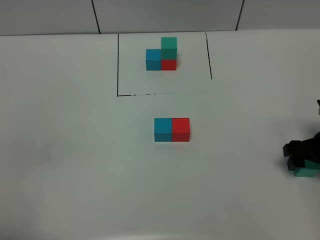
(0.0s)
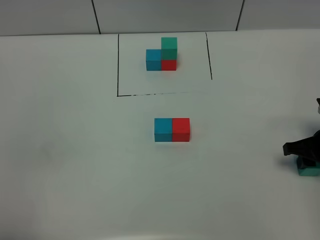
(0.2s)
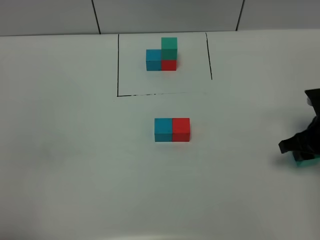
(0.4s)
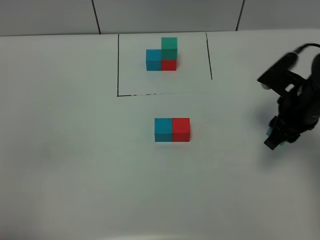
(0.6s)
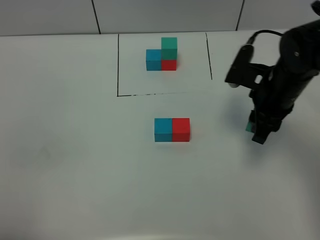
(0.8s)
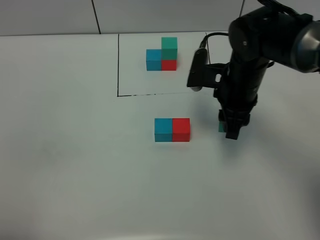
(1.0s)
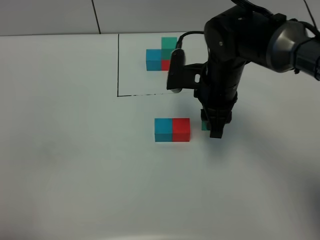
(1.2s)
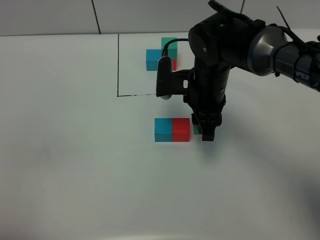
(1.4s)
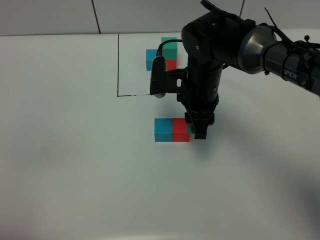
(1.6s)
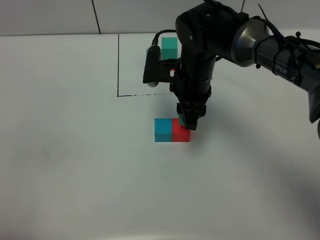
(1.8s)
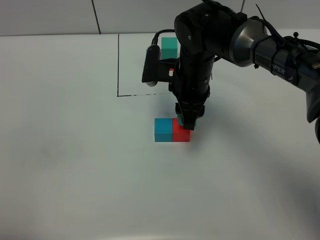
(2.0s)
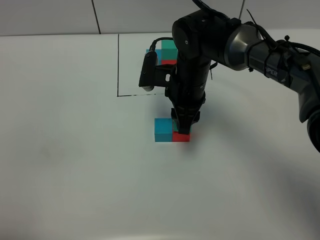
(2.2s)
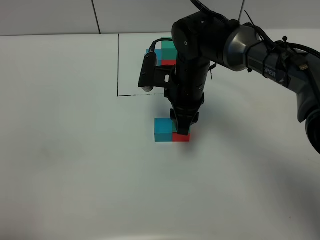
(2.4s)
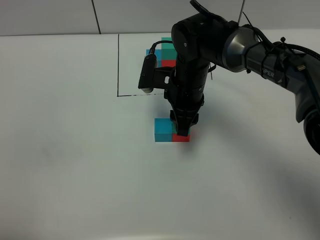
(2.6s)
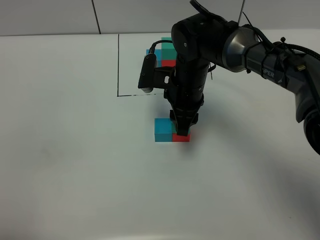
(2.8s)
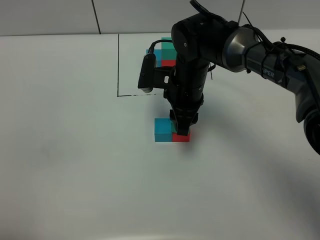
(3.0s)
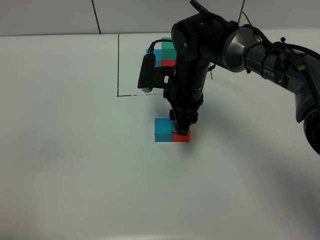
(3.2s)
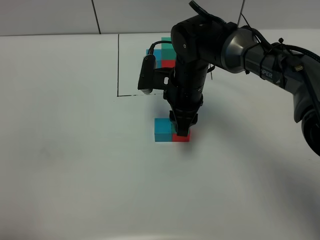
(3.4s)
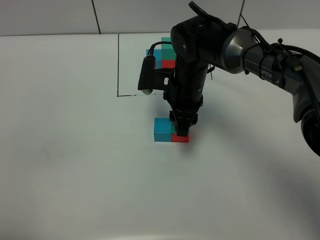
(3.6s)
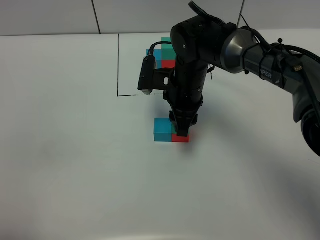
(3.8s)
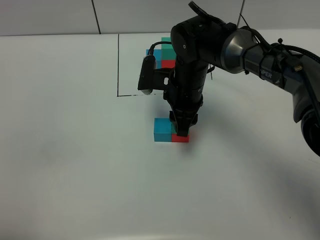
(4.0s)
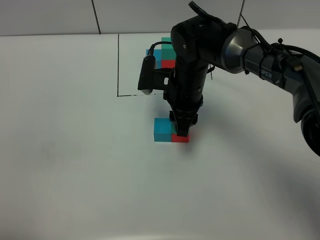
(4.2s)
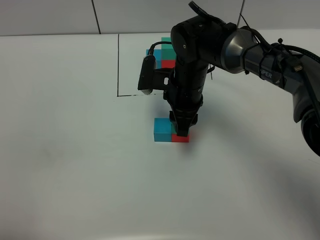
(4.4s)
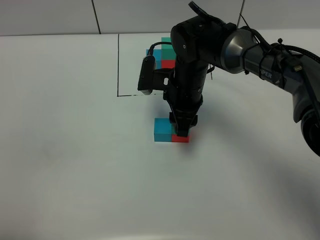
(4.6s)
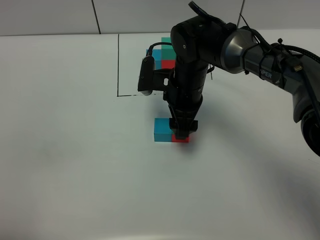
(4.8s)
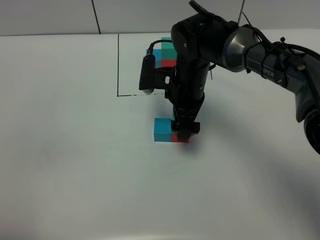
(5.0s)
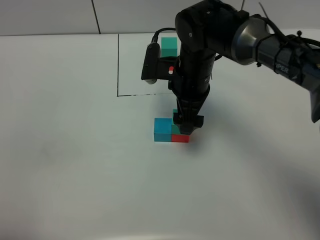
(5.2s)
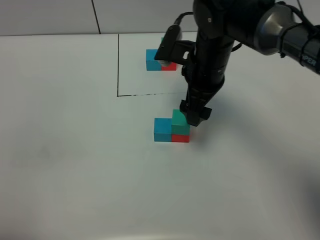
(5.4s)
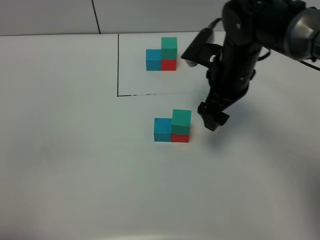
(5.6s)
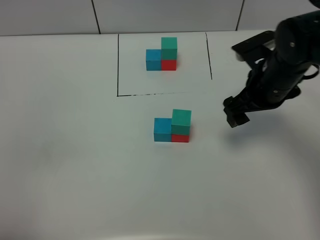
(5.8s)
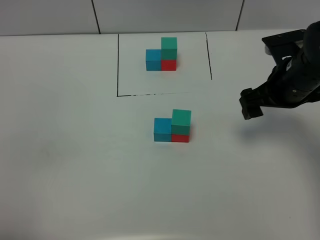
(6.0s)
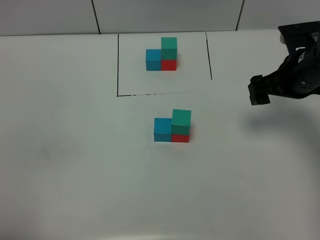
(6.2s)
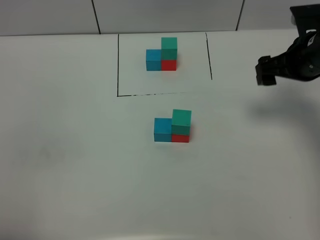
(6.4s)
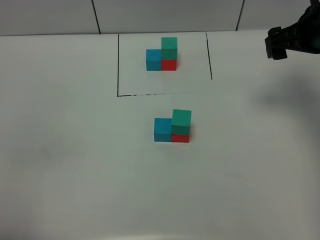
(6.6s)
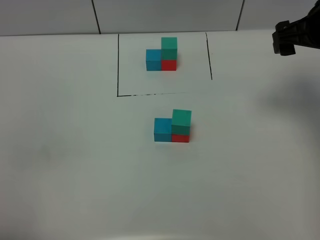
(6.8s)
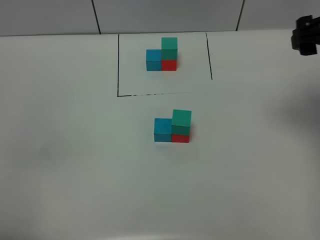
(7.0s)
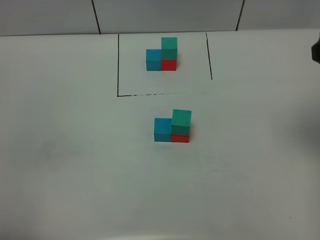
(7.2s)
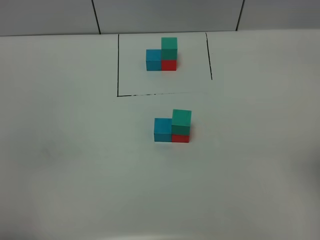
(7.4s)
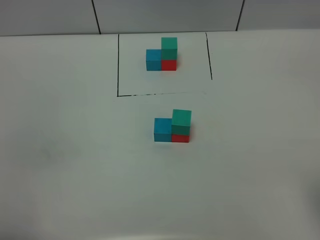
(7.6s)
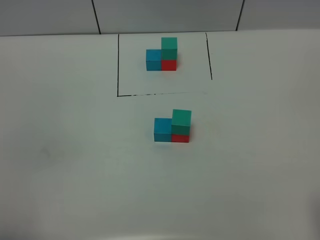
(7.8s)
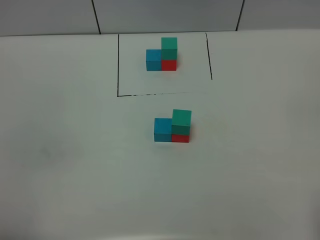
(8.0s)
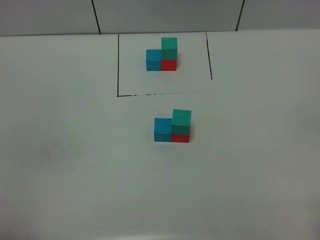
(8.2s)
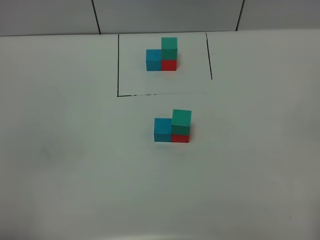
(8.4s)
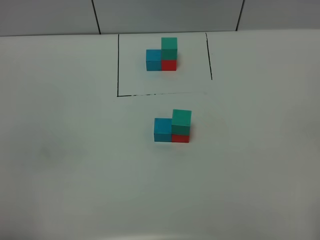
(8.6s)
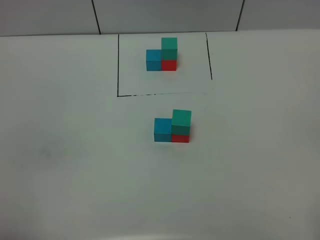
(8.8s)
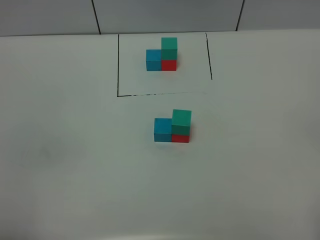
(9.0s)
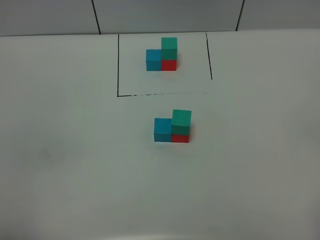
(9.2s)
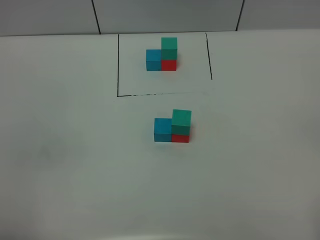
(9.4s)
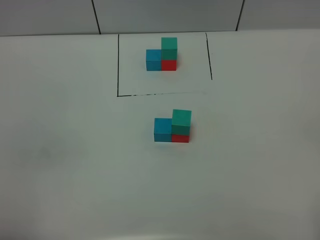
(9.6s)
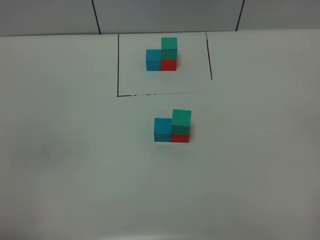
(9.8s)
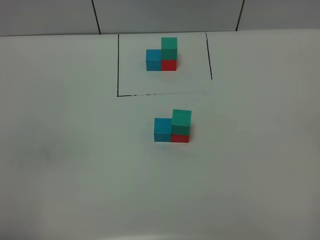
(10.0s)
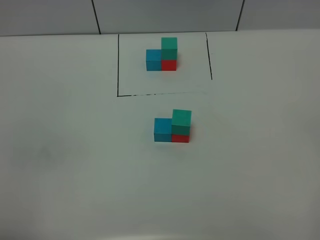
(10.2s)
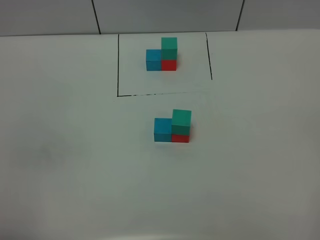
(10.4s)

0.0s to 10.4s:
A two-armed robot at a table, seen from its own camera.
Task of the whole recording: According to the building block template in front, assemble the scattered blocks together.
Step, 0.0s to 5.0s: Put the green build block on the red build block.
0.0s to 1.4s: The right gripper travels to the left by some 25 cm, and closes.
1.4s to 3.0s: The grippers stay close to where they were, moving slightly.
3.0s to 4.4s: The two grippers keep their place.
4.4s to 6.0s: The right gripper goes roughly 20 cm to the right, and opens.
6.0s to 7.4s: The right gripper travels backward, upward and to the right by approximately 25 cm.

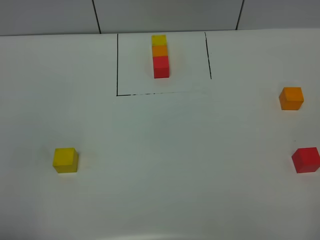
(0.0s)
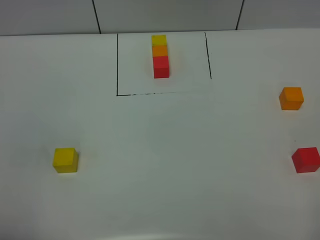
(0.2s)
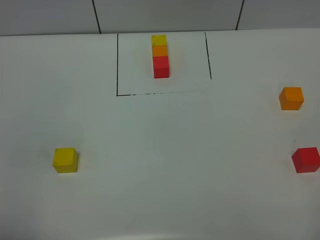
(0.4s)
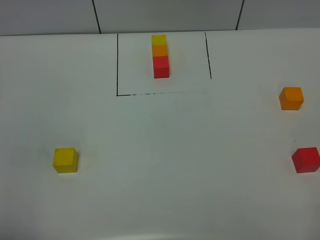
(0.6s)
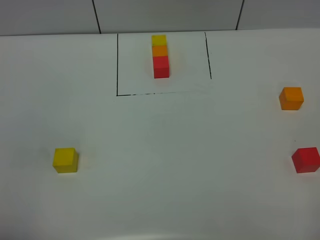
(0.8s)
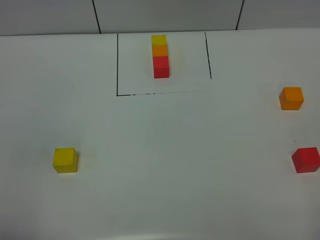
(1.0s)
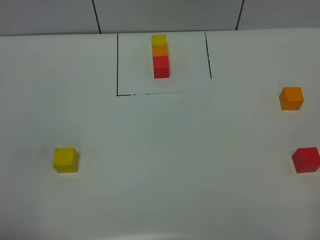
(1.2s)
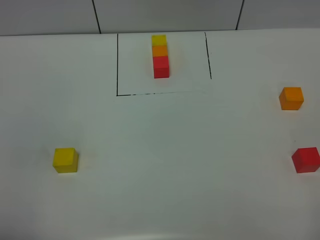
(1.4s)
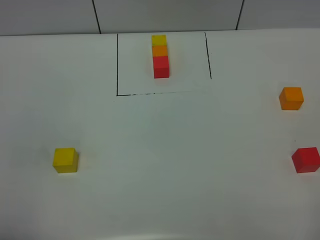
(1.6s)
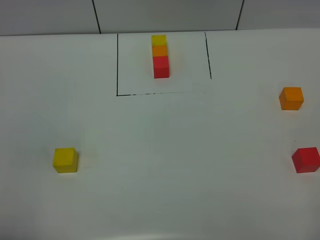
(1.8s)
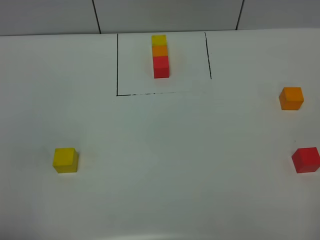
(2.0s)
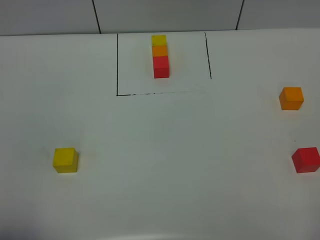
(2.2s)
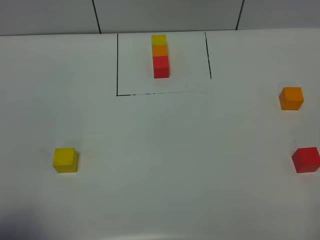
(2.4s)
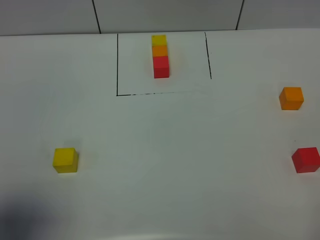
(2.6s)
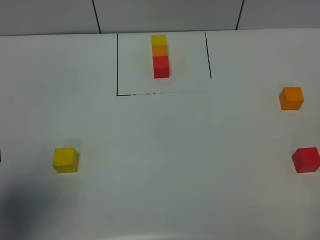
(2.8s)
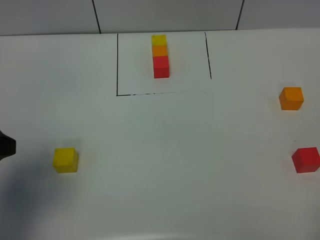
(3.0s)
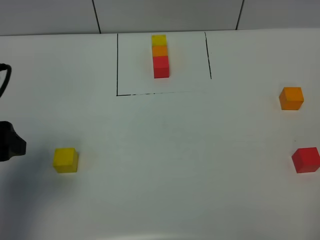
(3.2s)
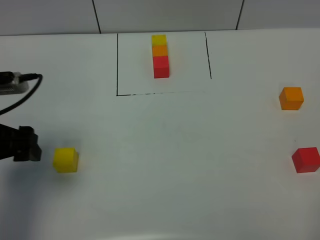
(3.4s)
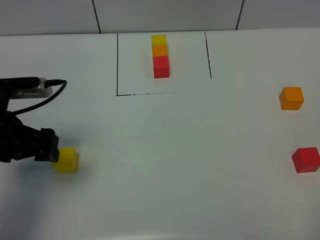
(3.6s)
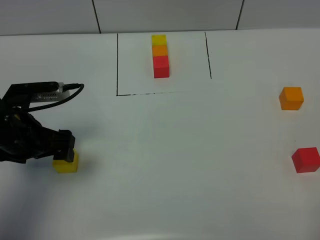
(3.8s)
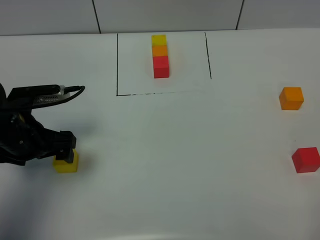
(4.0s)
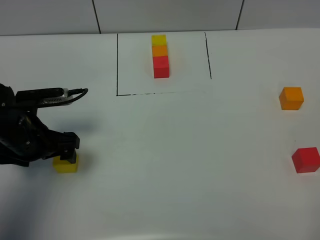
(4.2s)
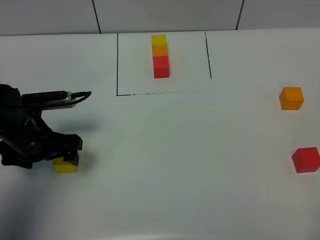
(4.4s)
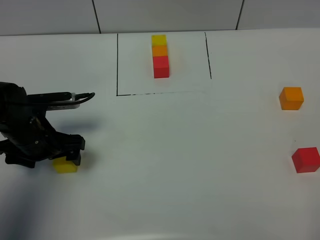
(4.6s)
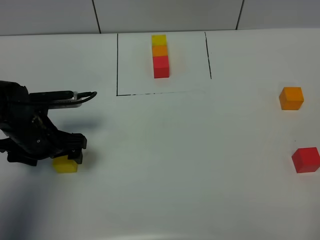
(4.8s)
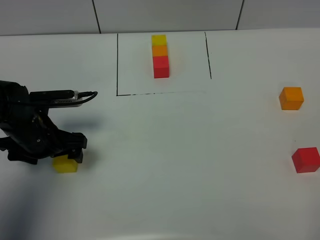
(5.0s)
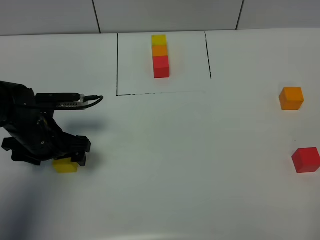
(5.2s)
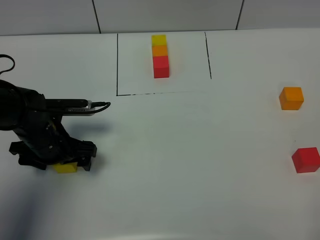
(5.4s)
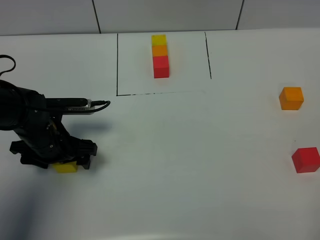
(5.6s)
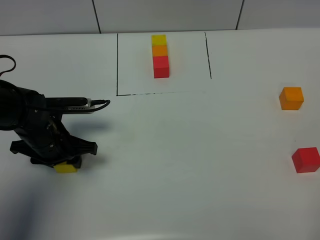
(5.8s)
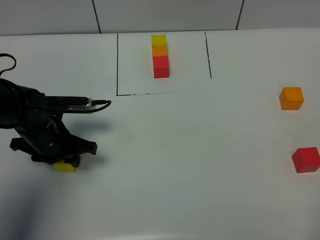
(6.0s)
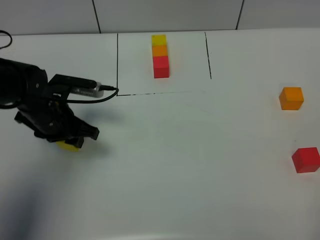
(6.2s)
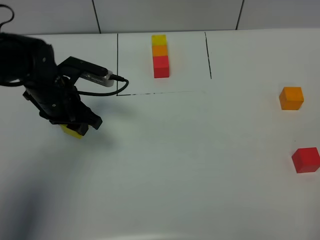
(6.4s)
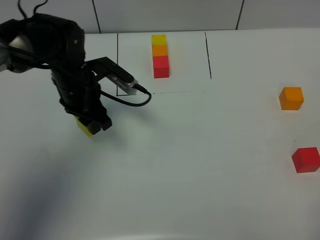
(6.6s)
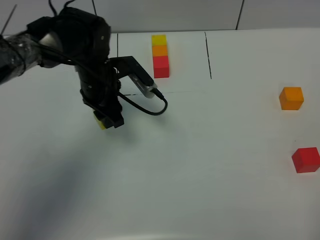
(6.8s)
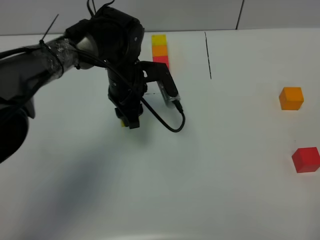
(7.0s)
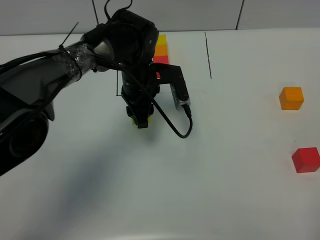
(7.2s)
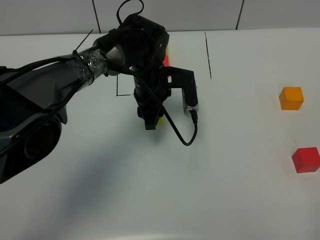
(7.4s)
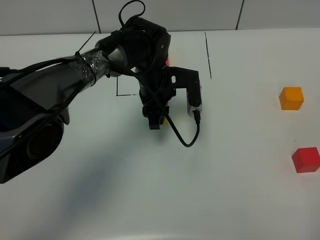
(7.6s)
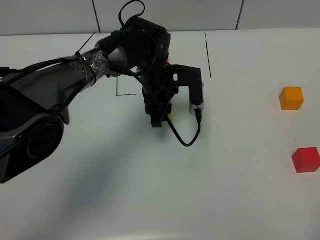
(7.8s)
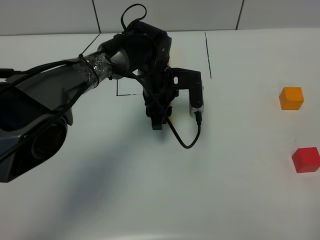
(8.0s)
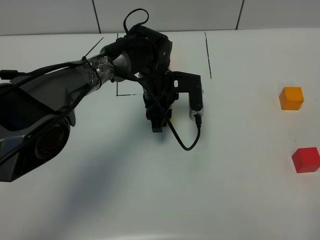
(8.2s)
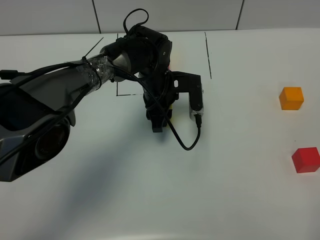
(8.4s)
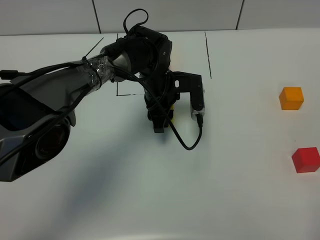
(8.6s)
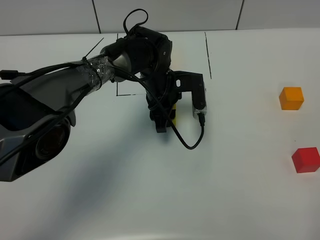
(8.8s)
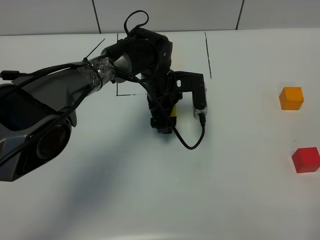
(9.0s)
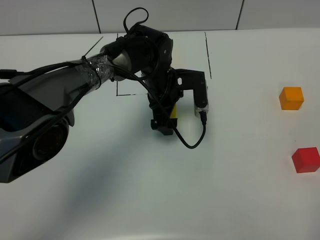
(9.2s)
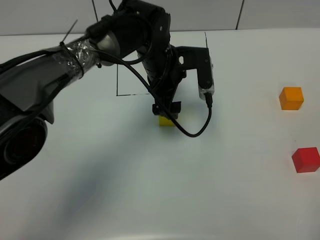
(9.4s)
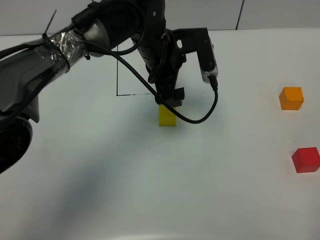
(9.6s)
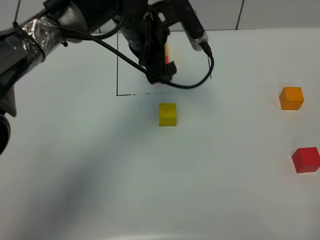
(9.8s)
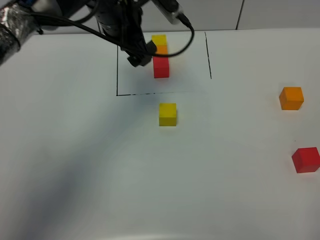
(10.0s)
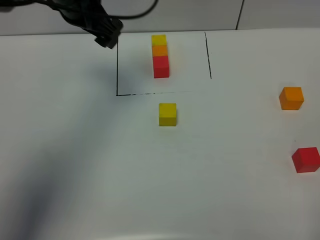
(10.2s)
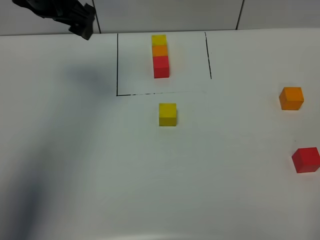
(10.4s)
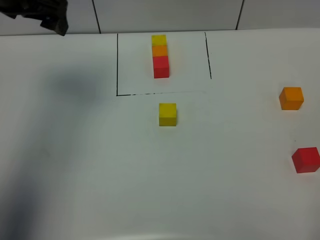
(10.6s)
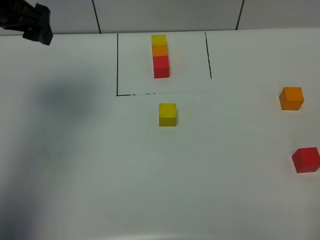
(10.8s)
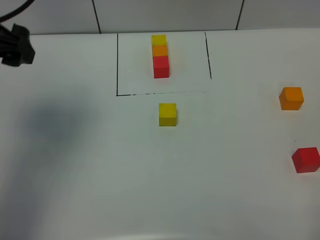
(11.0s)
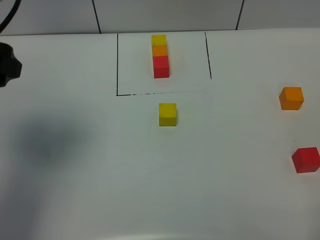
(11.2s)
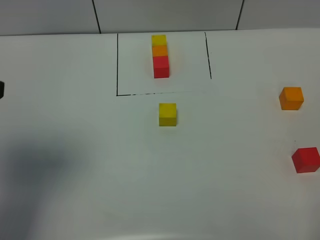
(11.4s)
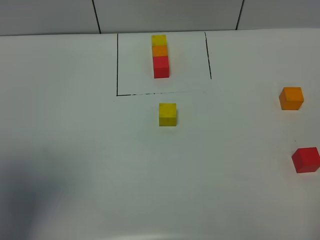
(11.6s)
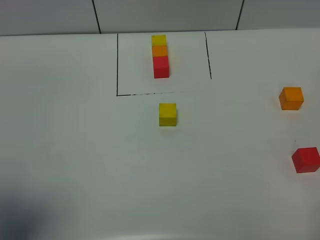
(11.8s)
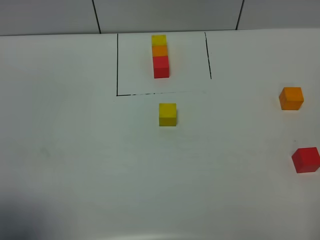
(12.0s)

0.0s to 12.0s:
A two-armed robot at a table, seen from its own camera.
Task of the whole recording: According to the building block template in front, assemble the scattered blocks together.
Step, 0.0s to 8.8s: Put the yellow build block in the center of the table.
0.0s to 1.6s: The two grippers keep their place.
1.6s to 3.0s: The left gripper goes roughly 15 cm forward.
3.0s to 4.4s: The left gripper moves downward and forward, approximately 20 cm.
4.4s to 6.0s: The left gripper closes its fingers.
6.0s to 7.6s: The left gripper goes roughly 25 cm to the right and forward.
7.6s to 9.0s: The left gripper opens.
9.0s to 10.4s: The left gripper is displaced upward and to the left by approximately 30 cm.
10.4s to 12.0s: The left gripper travels backward by some 35 cm.
